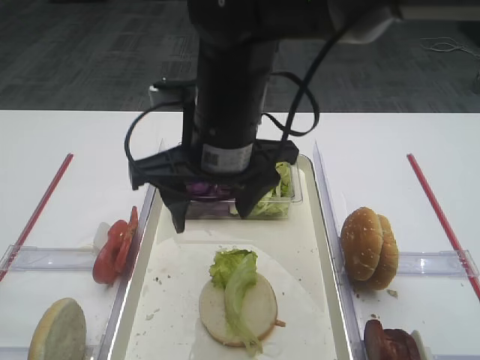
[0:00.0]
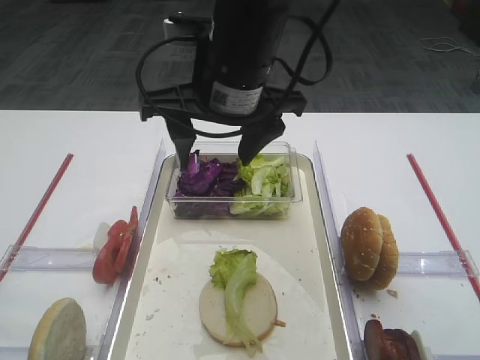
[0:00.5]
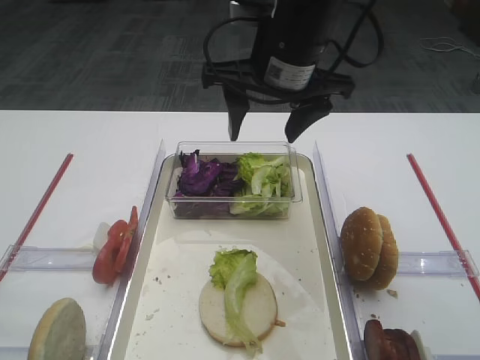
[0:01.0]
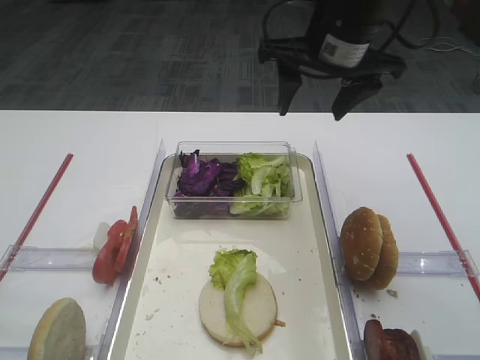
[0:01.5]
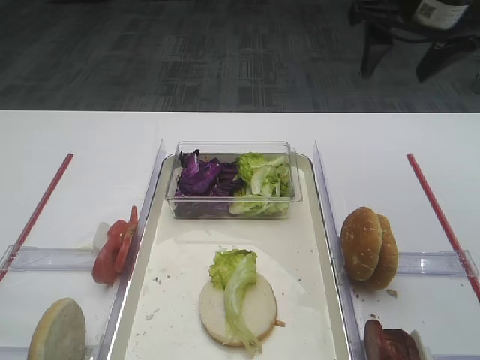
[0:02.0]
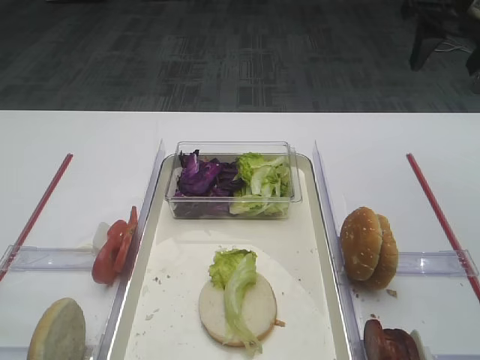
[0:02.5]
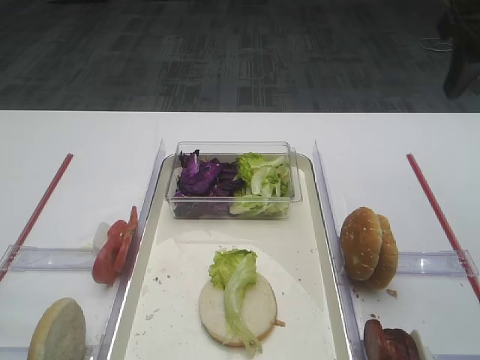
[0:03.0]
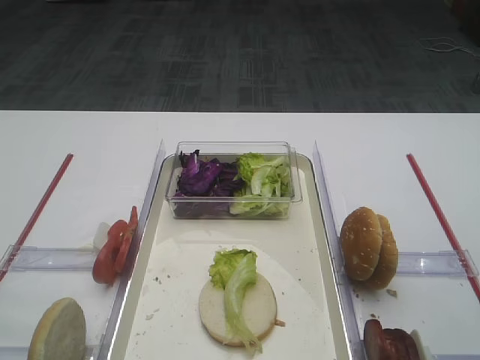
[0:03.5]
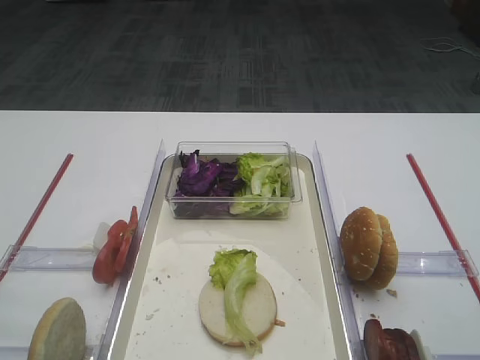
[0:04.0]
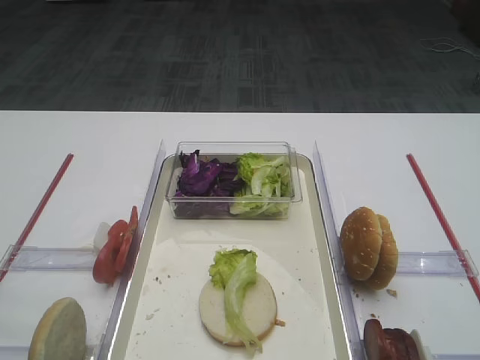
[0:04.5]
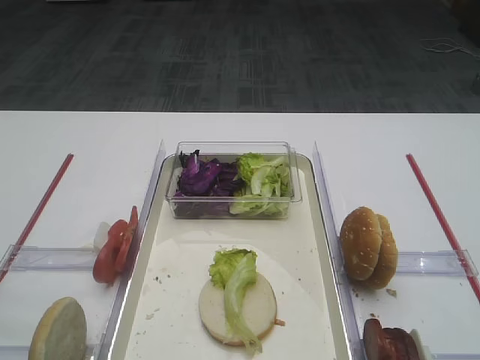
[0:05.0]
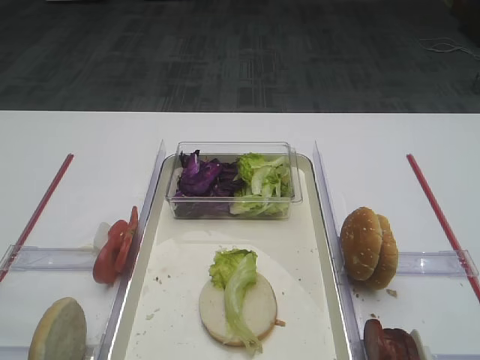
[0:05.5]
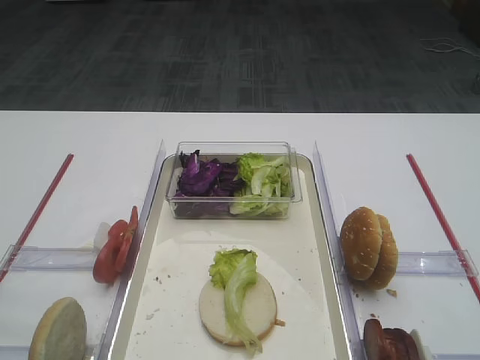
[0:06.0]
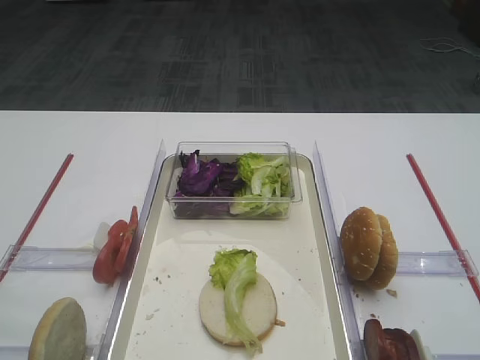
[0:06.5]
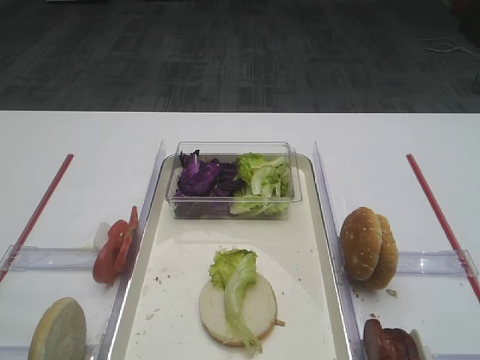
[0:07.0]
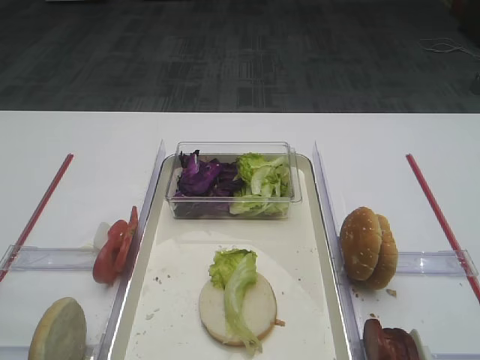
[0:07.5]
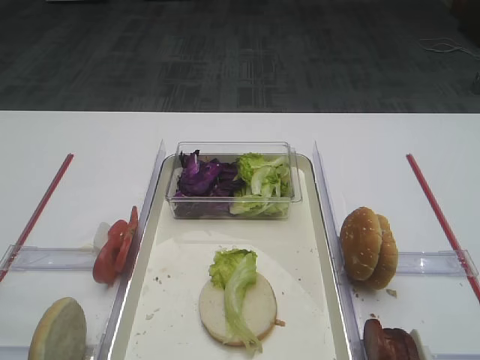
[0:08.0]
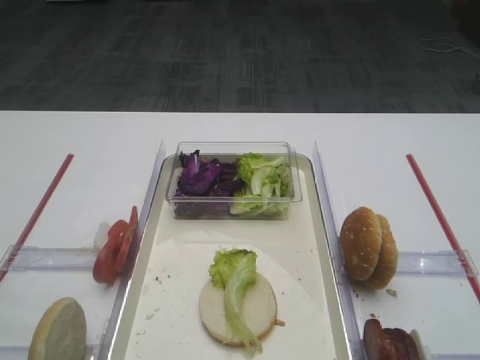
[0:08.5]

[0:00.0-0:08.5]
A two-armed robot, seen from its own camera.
0:00.0 to 0:02.0: The right gripper goes approximately 25 cm to the right and forward.
0:02.0 to 0:04.0: The right gripper heads backward, covering roughly 30 cm.
0:06.5 to 0:08.5: Both grippers stay about where they are.

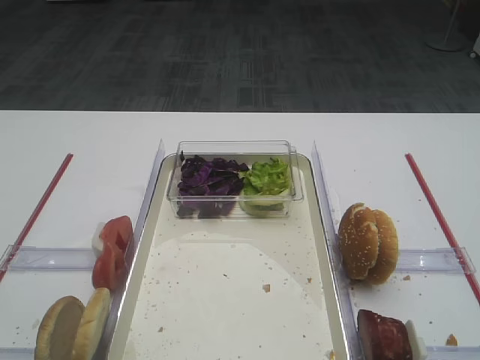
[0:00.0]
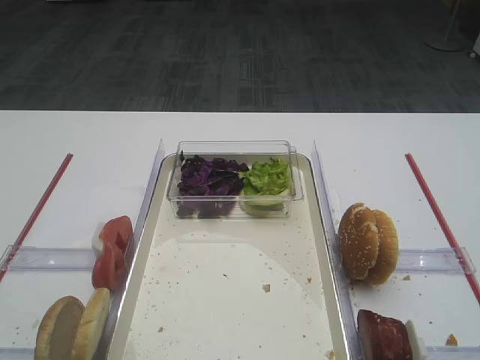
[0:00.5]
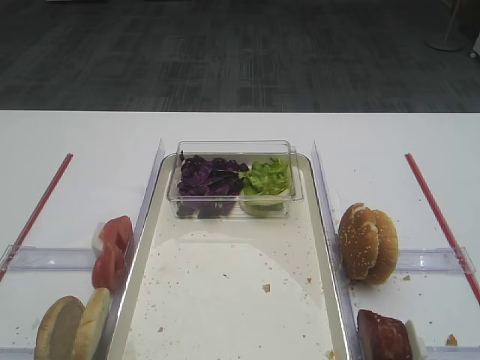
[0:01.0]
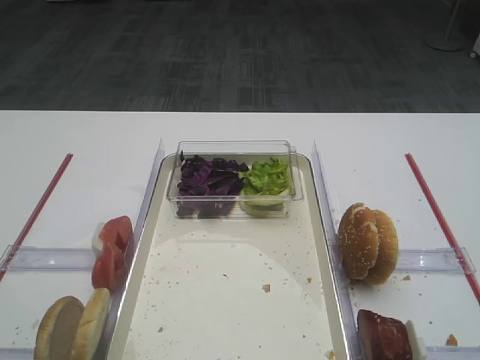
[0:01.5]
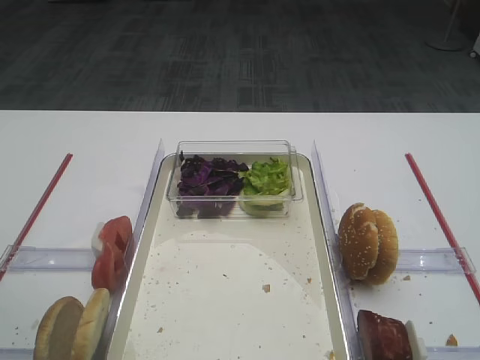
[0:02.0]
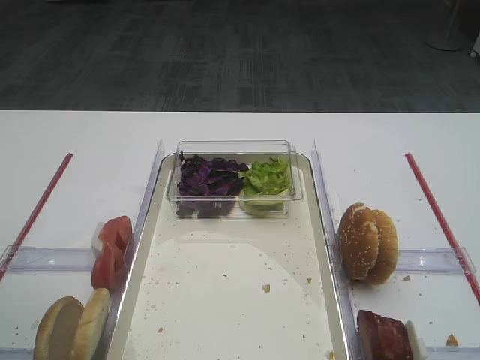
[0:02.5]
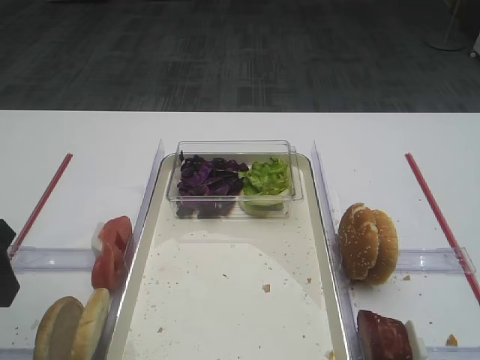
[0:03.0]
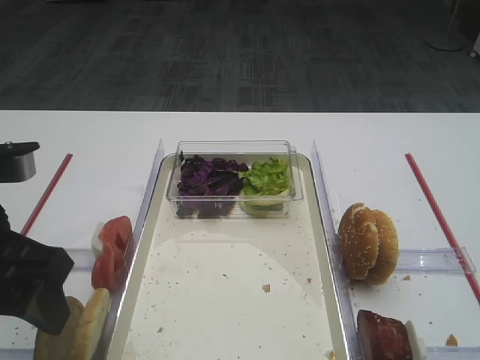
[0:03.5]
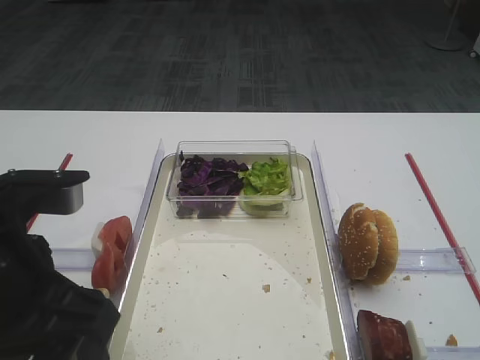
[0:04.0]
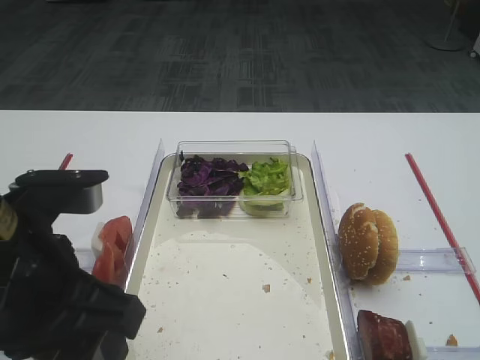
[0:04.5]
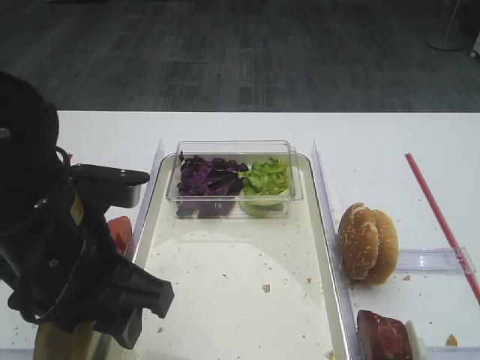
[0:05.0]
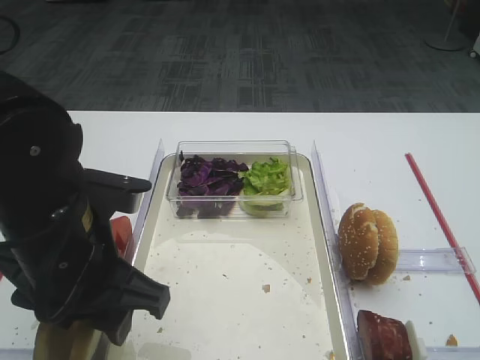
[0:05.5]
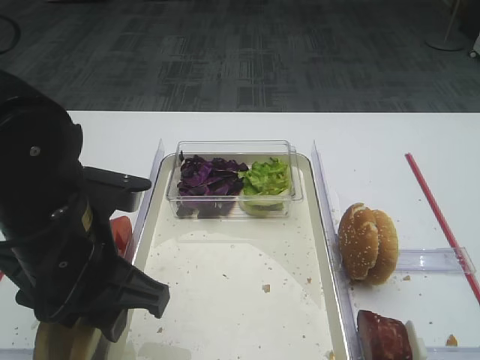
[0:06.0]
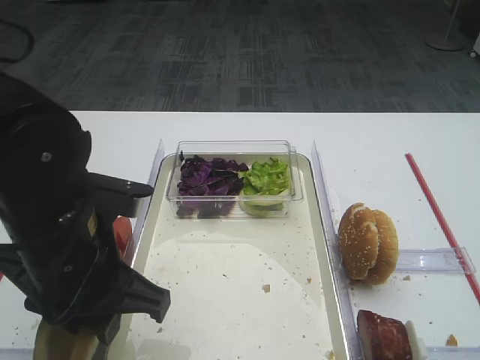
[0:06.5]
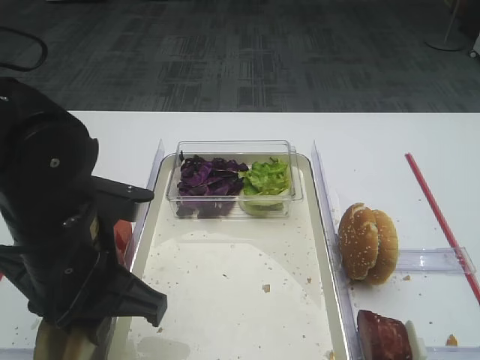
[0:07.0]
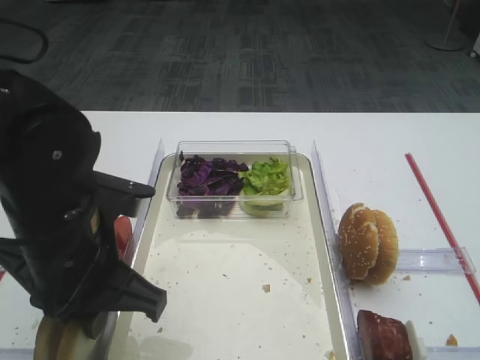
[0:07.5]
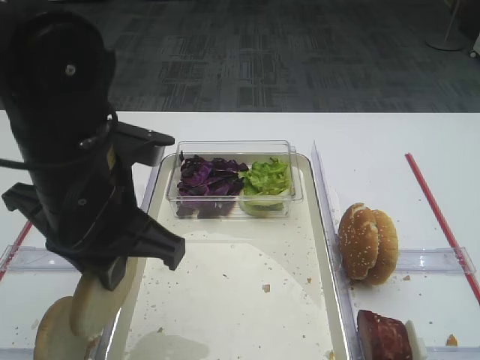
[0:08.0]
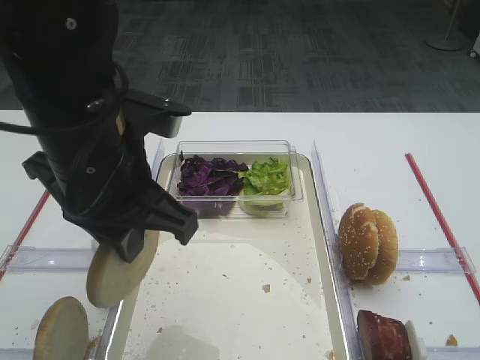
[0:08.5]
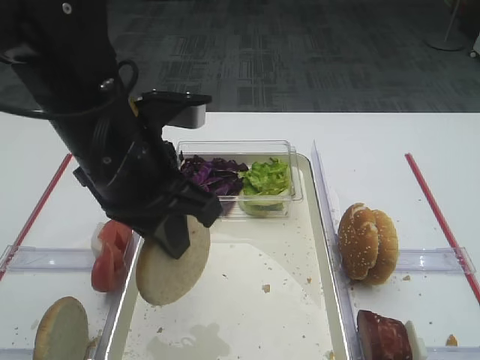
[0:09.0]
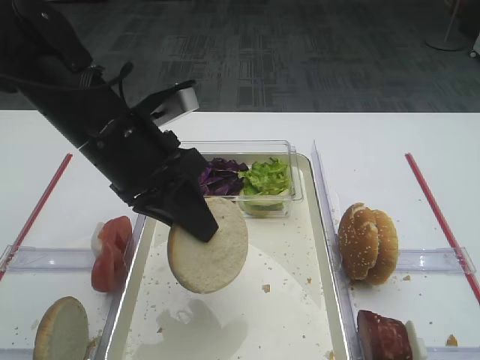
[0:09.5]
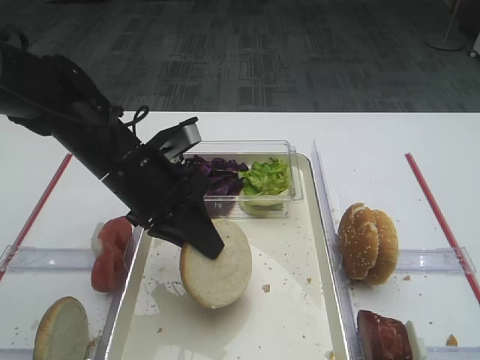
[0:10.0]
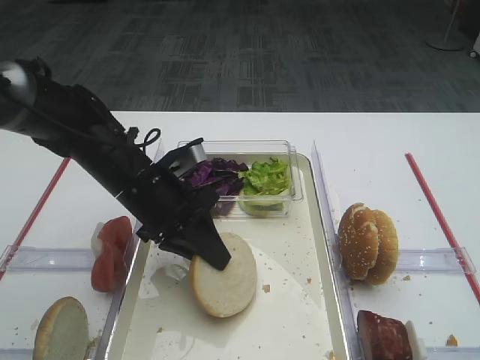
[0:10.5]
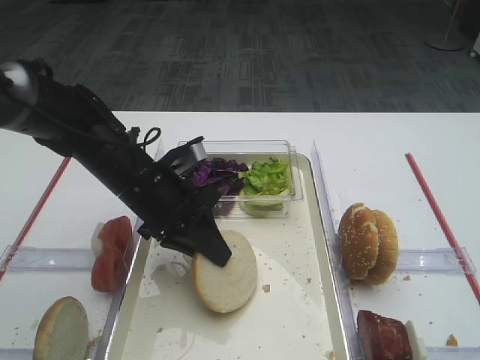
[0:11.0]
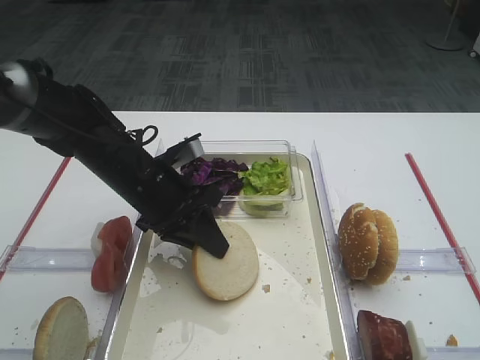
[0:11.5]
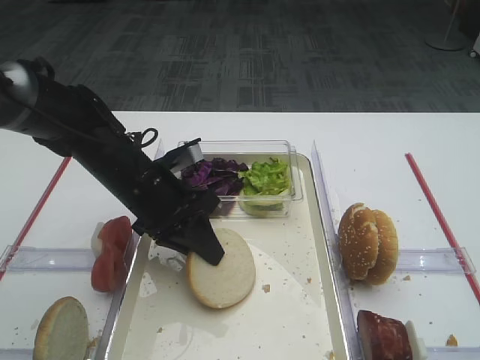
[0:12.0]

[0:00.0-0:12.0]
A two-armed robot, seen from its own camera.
Step, 0:00.0 to 0:08.0: Pick up the bread slice with the left gripper.
0:02.0 to 0:04.0: The left gripper heads to the right, covering some 10 cm.
0:04.0 to 0:06.0: The left gripper shifts by approximately 5 cm.
0:06.0 to 0:08.0: The left gripper closes.
0:08.0 to 0:10.0: The left gripper heads forward and downward, covering some 10 cm.
0:10.0 to 0:12.0: The grippers move only a little.

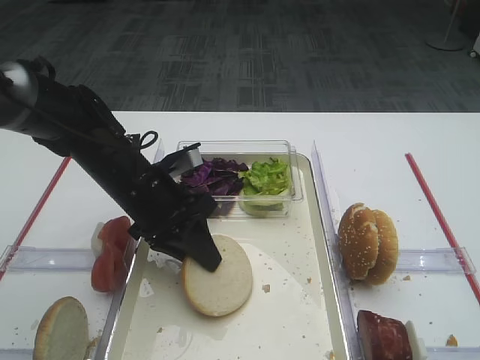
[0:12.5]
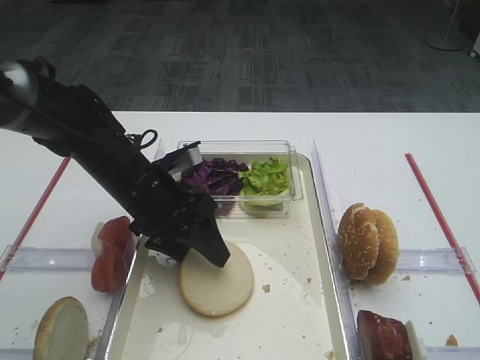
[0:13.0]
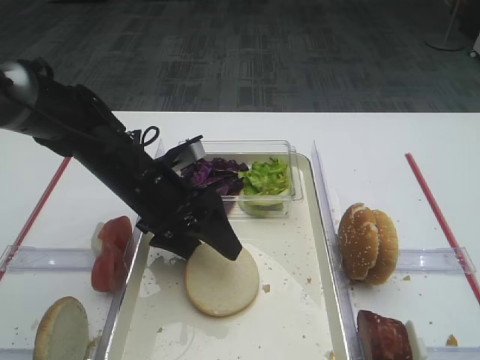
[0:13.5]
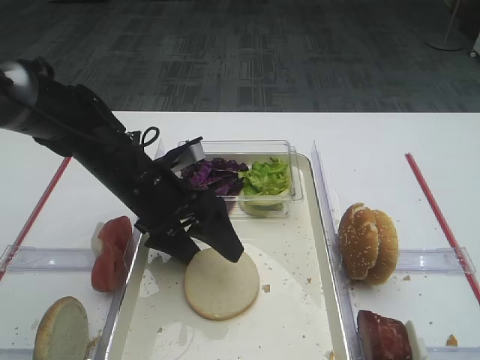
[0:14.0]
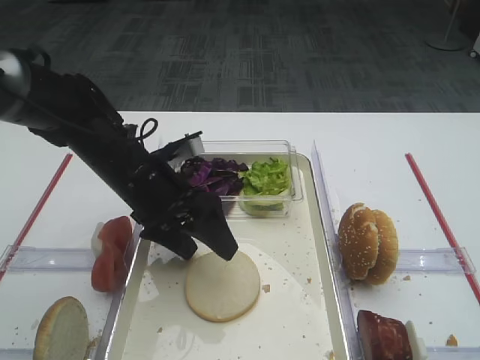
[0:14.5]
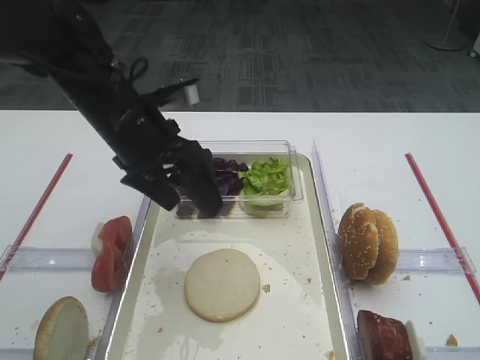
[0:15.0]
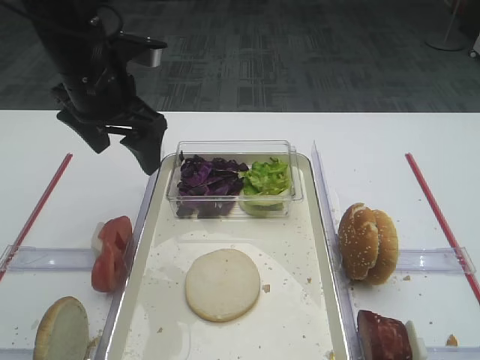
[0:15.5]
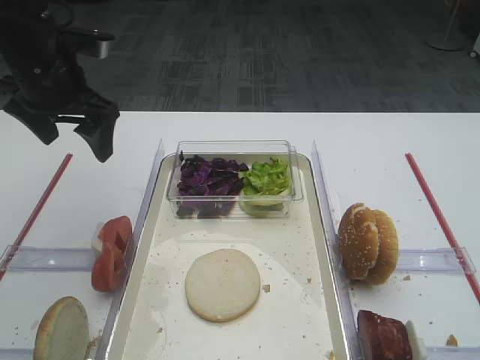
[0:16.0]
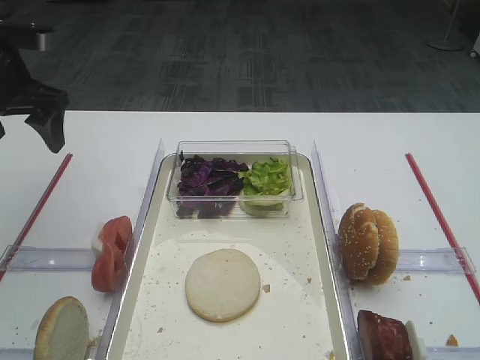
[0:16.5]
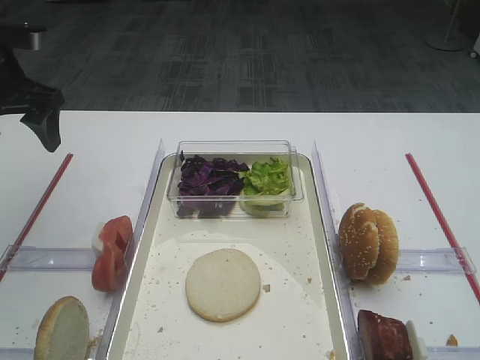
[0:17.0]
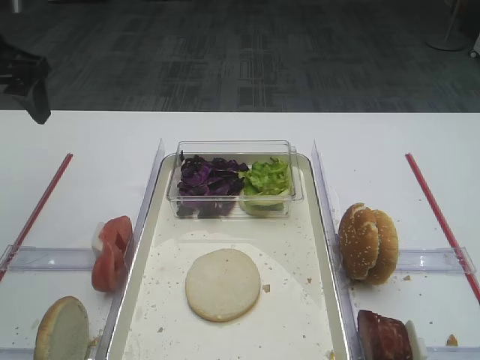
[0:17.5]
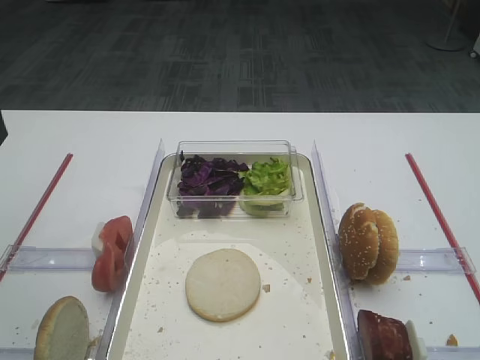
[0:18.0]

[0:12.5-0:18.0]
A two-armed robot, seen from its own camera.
Step, 0:12.5 to 0:14.5: Place the bread slice on the tray with the left gripper.
0:12.5 to 0:14.5: The left gripper opens up.
0:14.5 to 0:16.0: The left gripper moves upward, to the left and forward, approximately 15 cm.
0:16.0 to 0:18.0: The left gripper shifts approximately 15 cm backward, upward and to the left.
